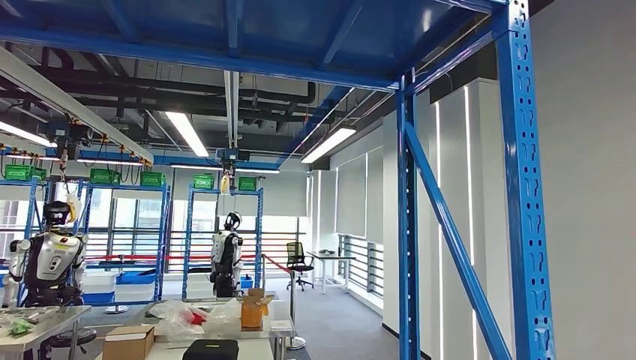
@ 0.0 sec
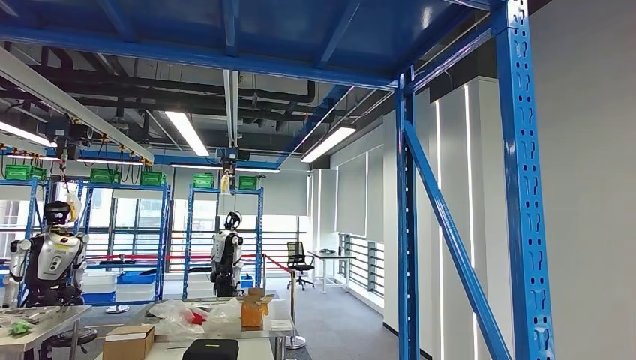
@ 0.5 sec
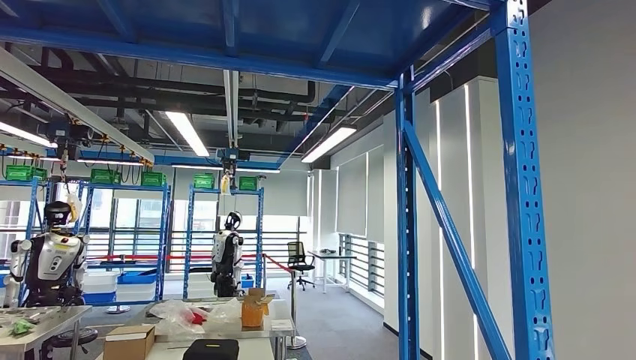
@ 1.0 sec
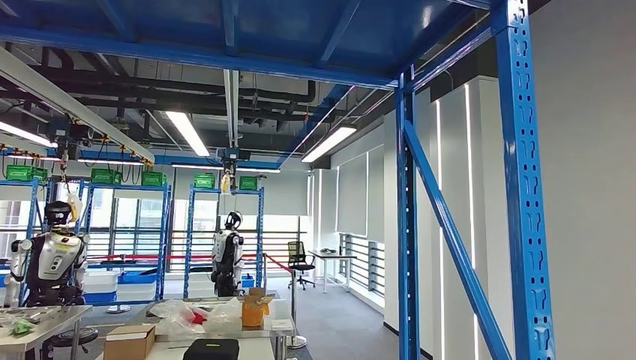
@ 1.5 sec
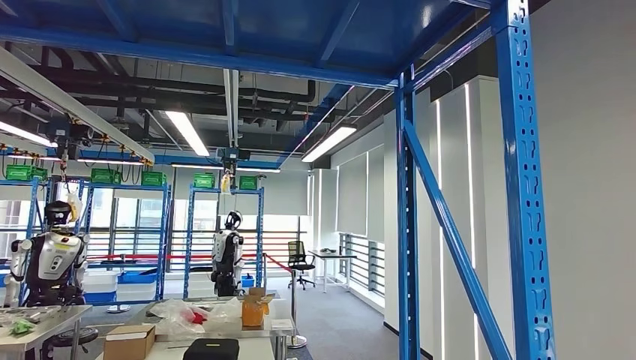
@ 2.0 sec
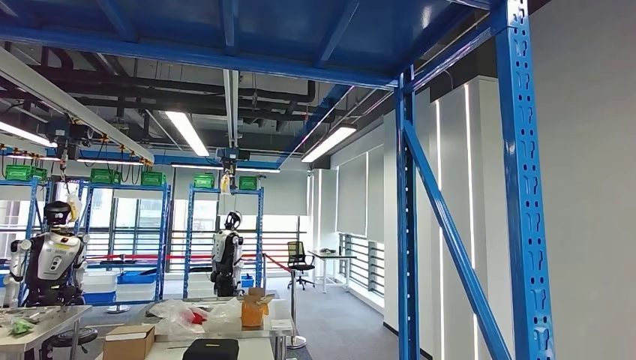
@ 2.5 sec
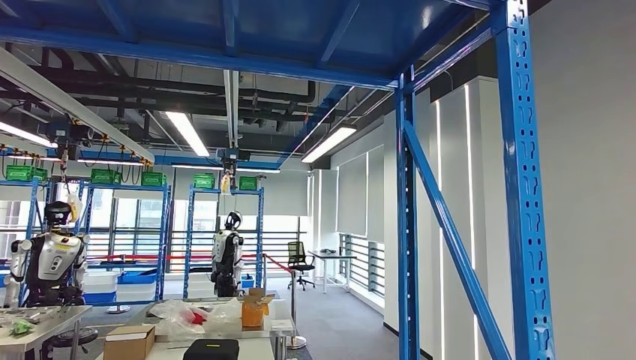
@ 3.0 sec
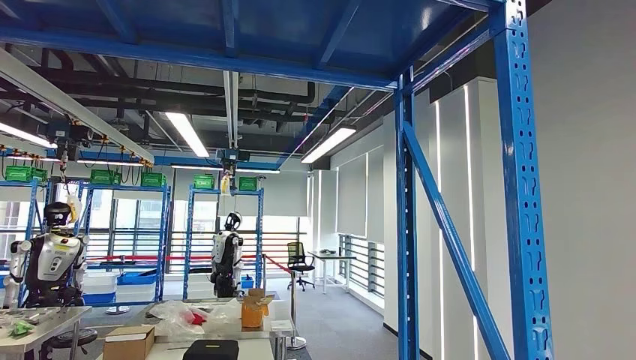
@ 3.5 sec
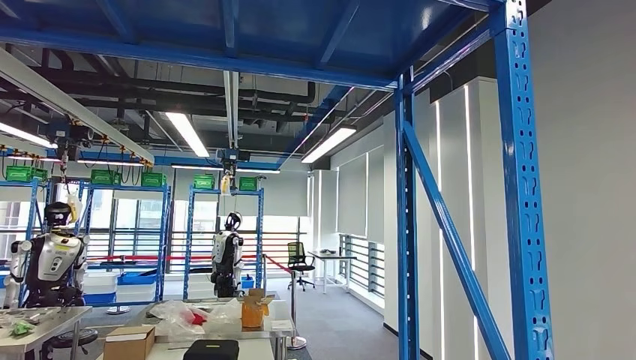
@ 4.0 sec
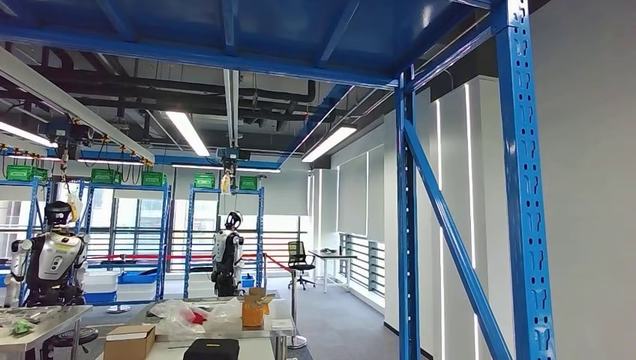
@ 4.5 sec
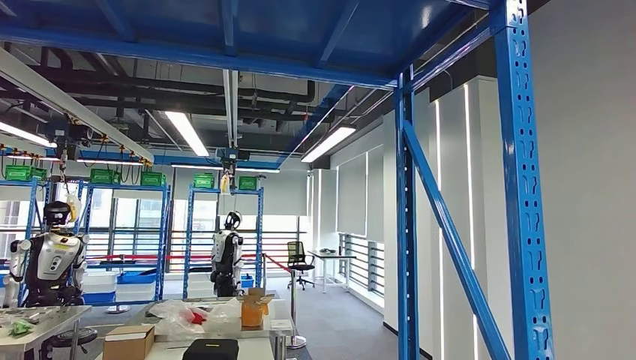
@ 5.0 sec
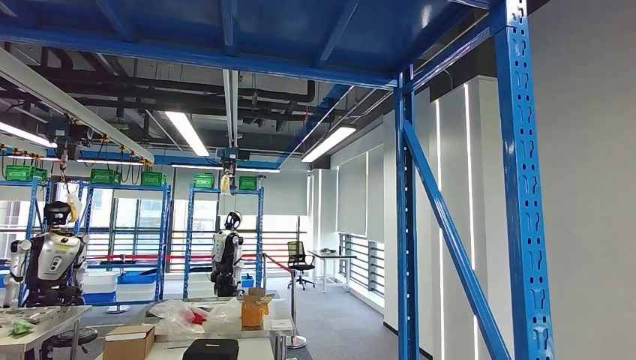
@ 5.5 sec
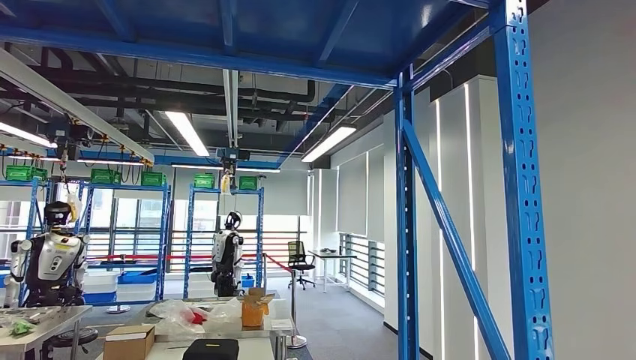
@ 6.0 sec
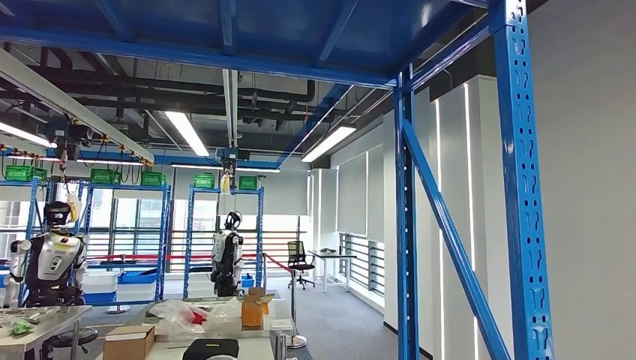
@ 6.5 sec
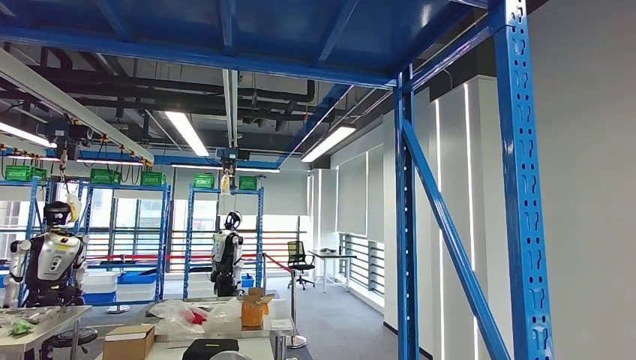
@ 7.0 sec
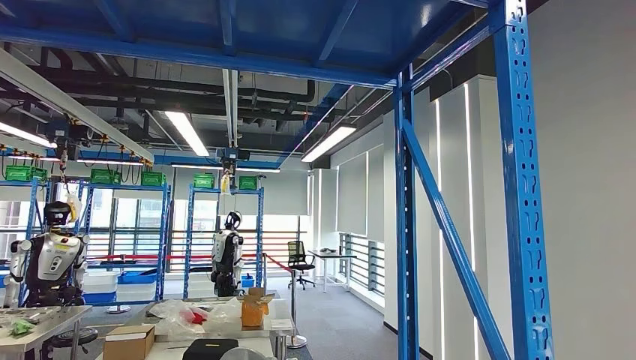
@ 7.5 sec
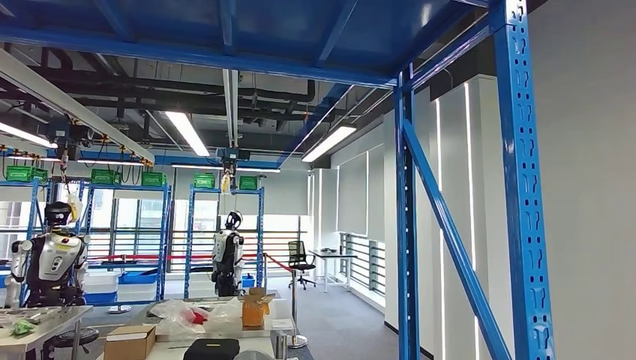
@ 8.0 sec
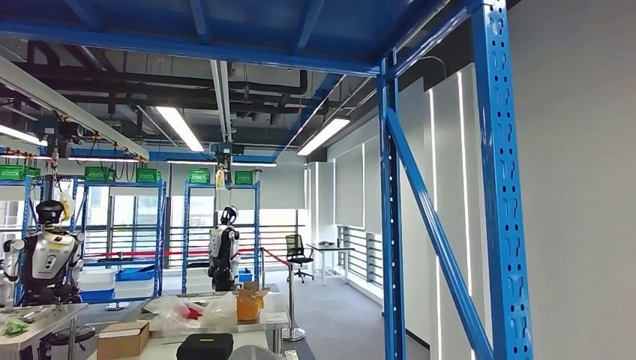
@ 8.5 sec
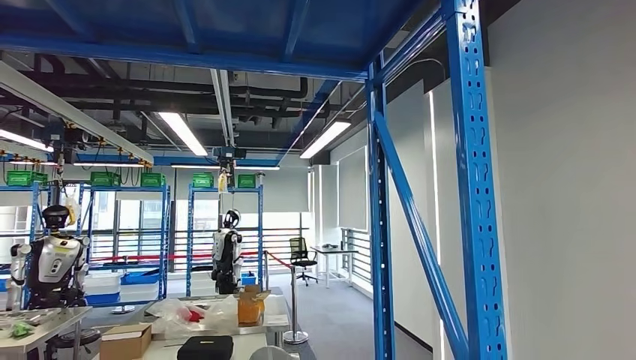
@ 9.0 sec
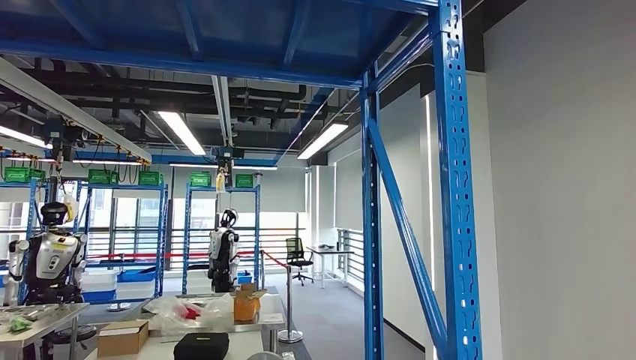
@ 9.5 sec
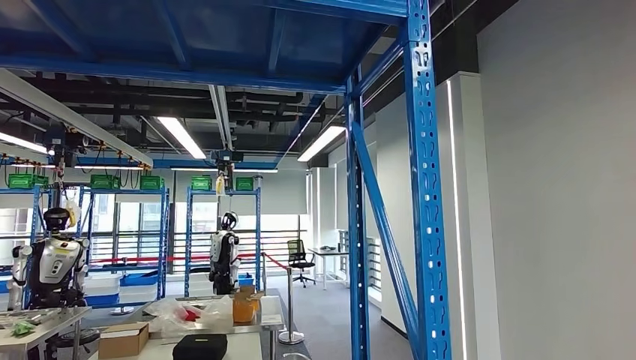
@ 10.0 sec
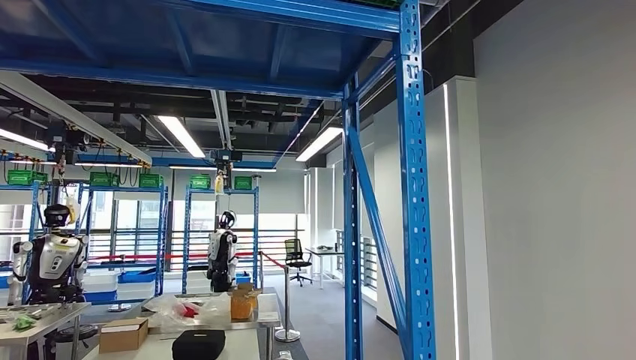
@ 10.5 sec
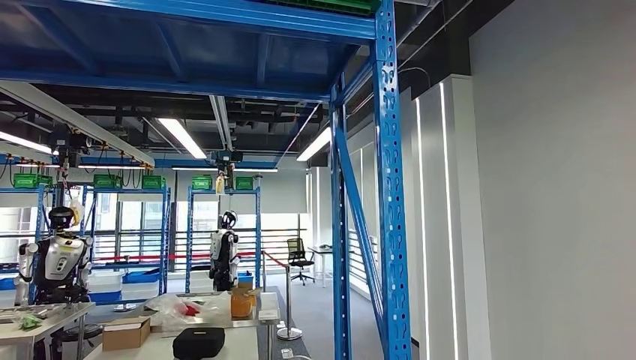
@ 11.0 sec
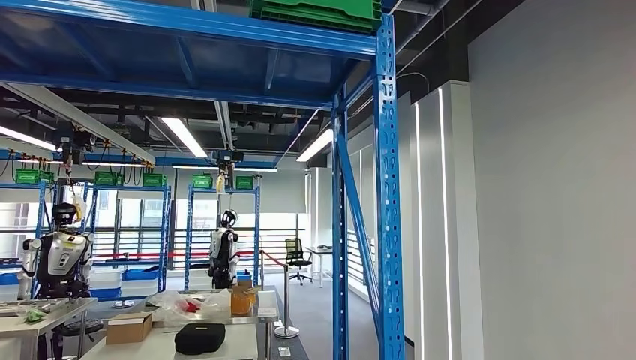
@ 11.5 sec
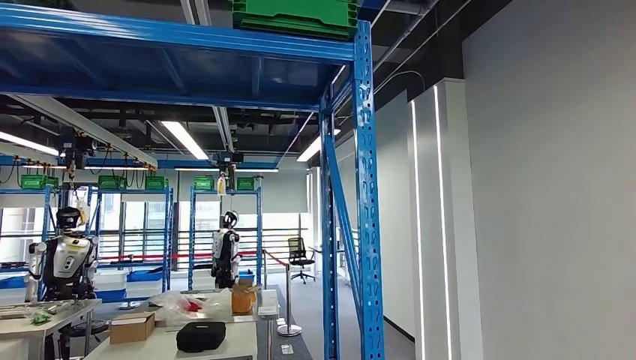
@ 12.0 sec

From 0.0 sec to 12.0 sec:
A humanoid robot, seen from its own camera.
Step, from 0.0 sec to 5.0 sec: Pick up the large material from the shelf.
From 0.0 sec to 2.0 sec: The right hand travels forward by roughly 5 cm.
From 2.0 sec to 4.0 sec: There are only small adjustments of the hands.
From 4.0 sec to 6.0 sec: The right hand travels upward and backward by about 20 cm.

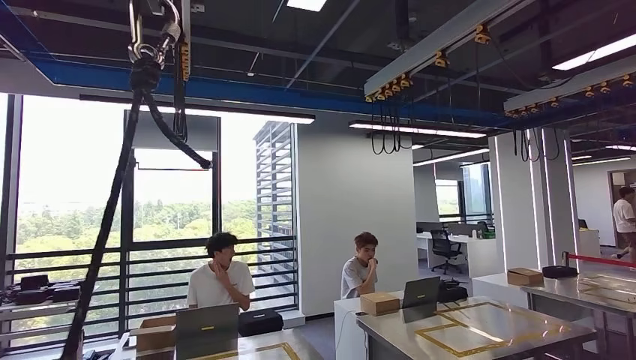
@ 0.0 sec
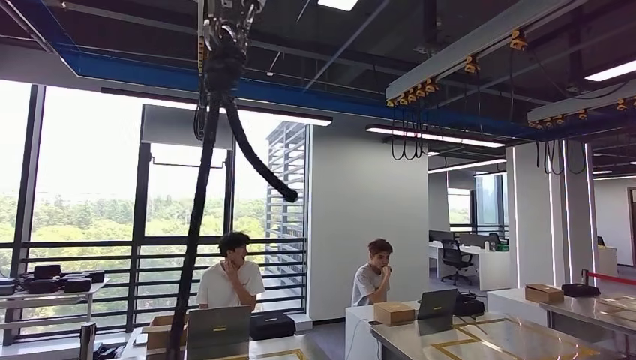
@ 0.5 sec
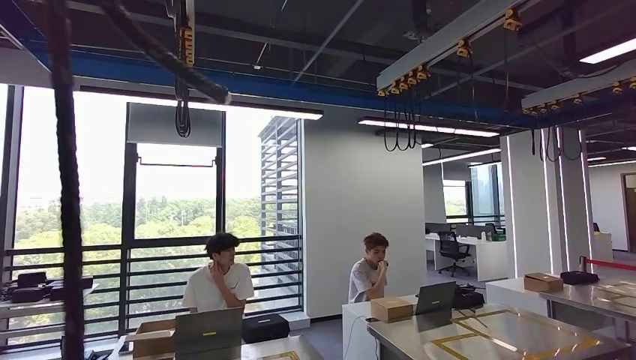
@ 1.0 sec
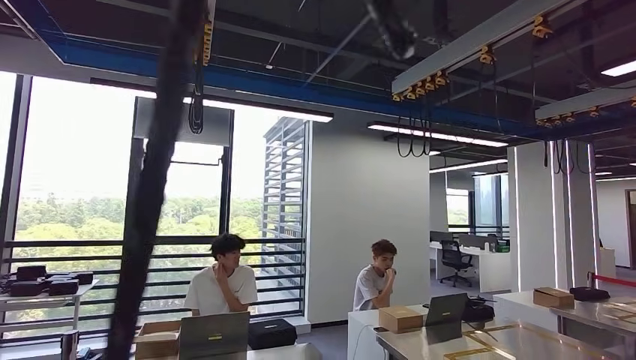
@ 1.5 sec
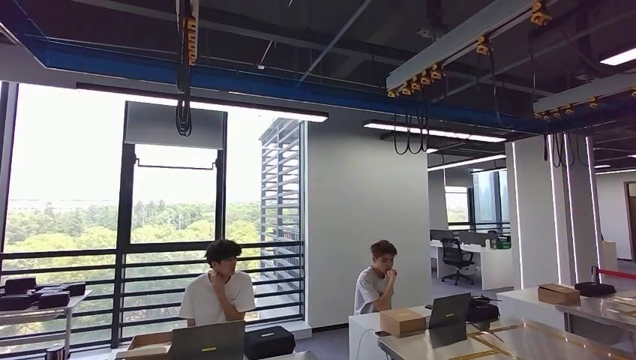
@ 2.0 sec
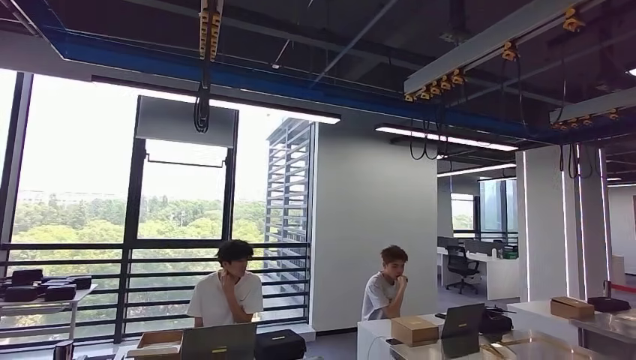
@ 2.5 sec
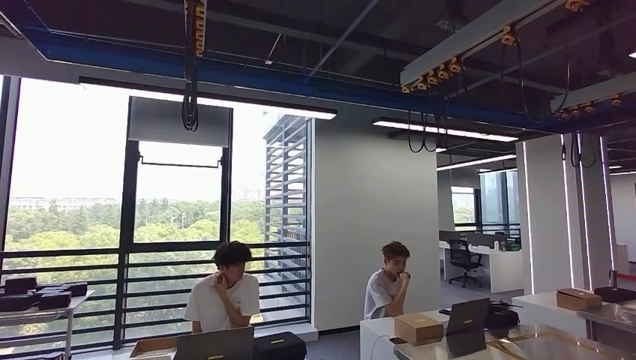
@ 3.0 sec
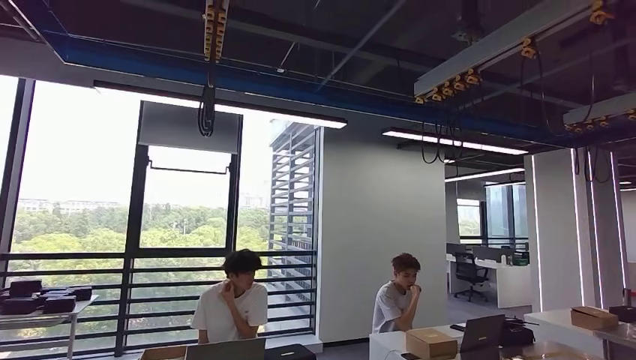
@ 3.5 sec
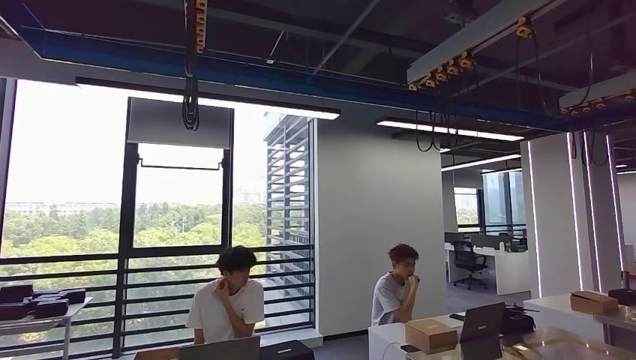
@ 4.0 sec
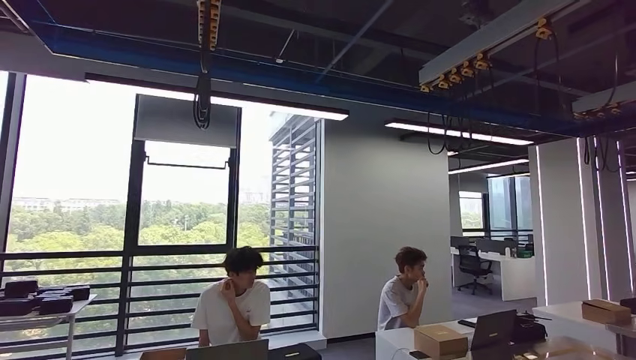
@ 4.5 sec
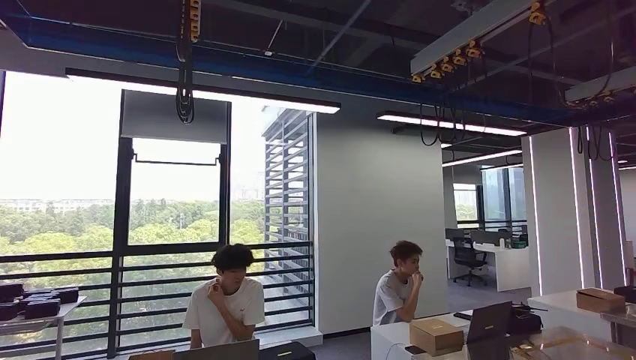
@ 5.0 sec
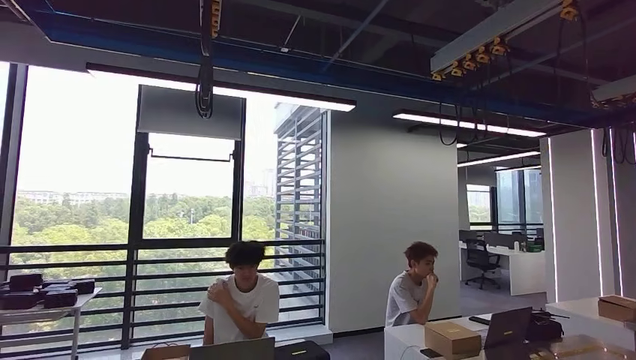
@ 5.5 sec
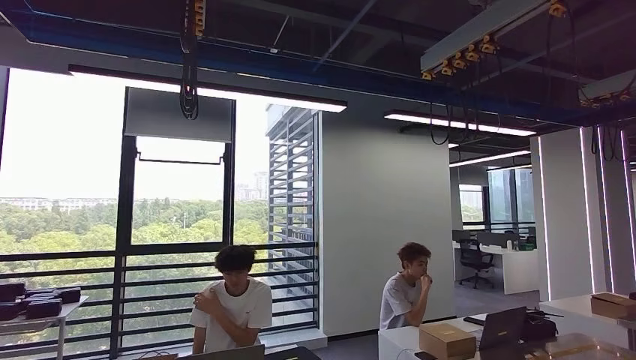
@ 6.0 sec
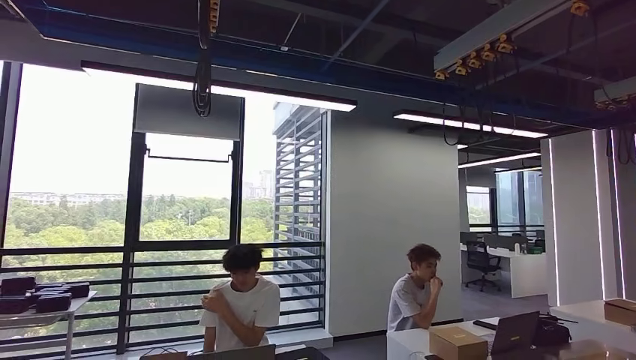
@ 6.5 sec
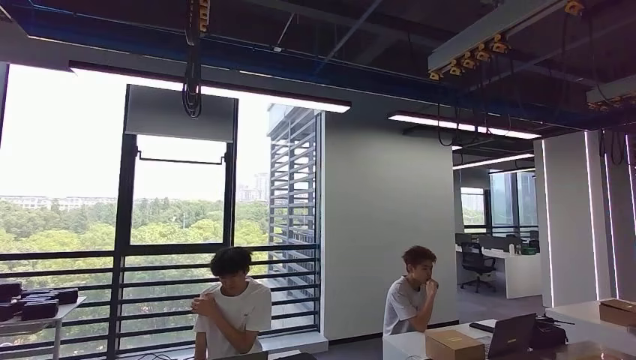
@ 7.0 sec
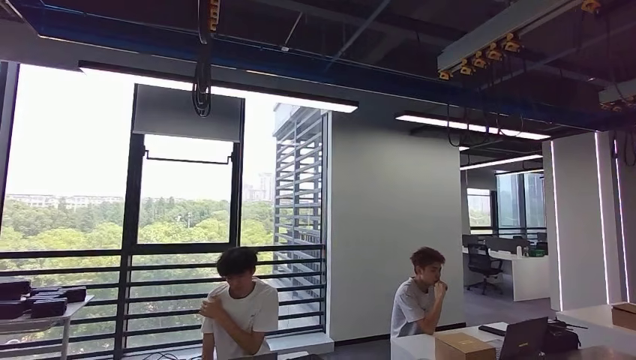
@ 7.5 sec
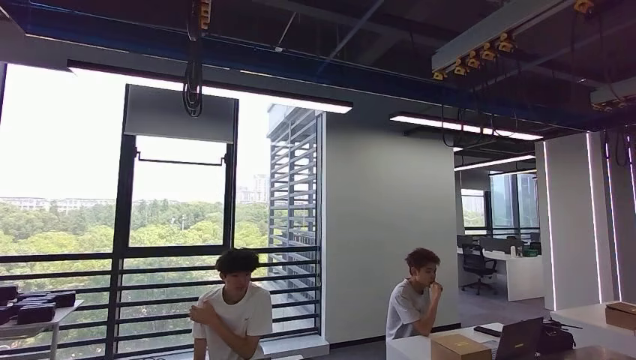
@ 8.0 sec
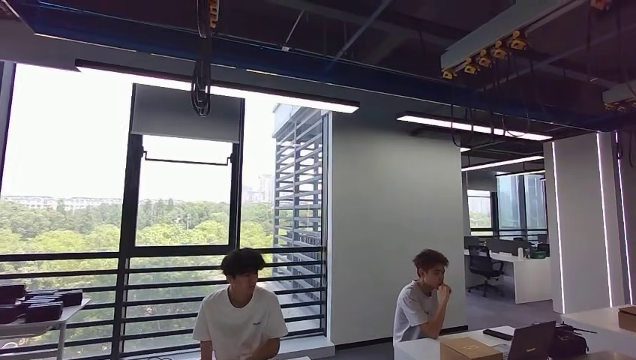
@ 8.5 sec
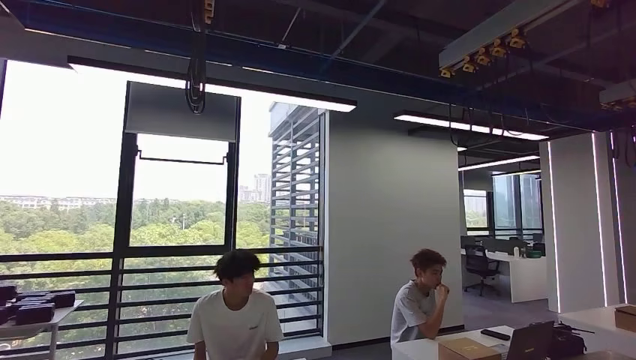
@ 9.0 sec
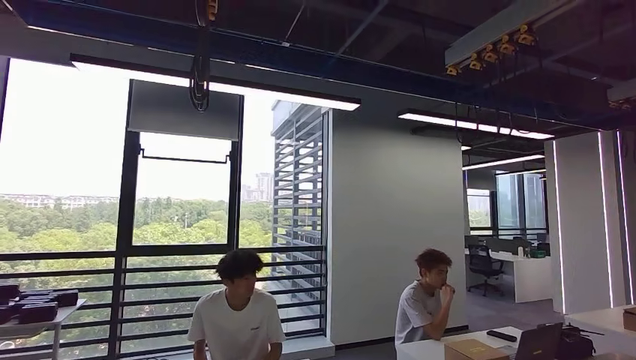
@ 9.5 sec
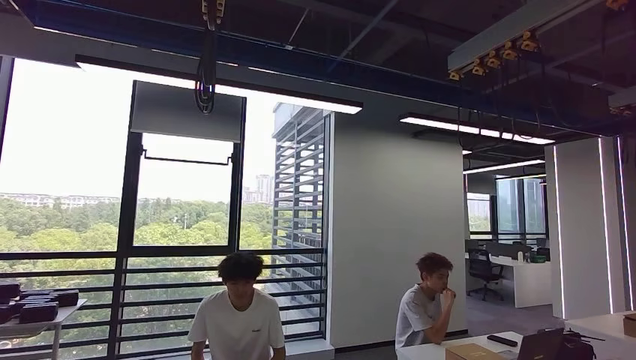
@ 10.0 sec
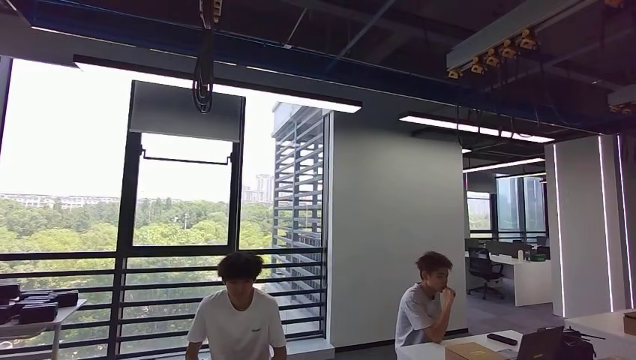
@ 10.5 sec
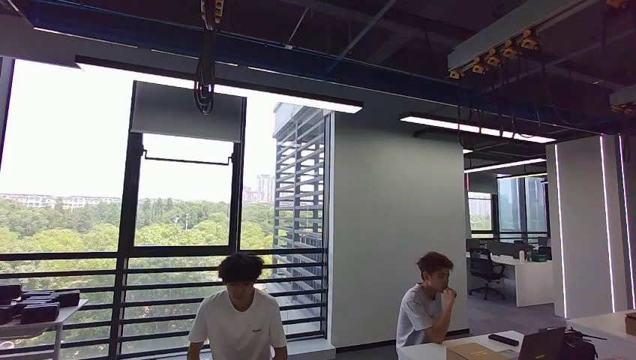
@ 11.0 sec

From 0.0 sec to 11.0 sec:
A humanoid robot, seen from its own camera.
Step, from 0.0 sec to 8.5 sec: Move the large material to the workbench.
